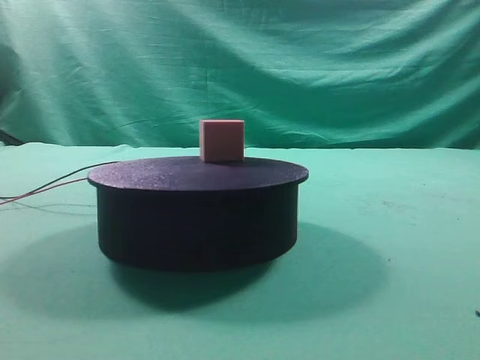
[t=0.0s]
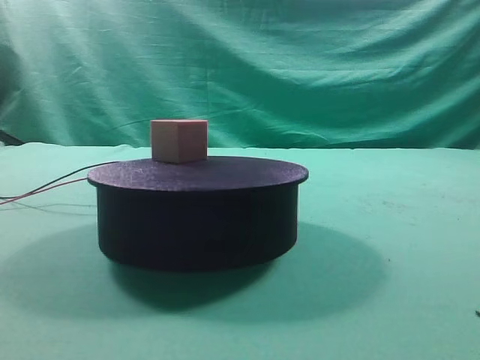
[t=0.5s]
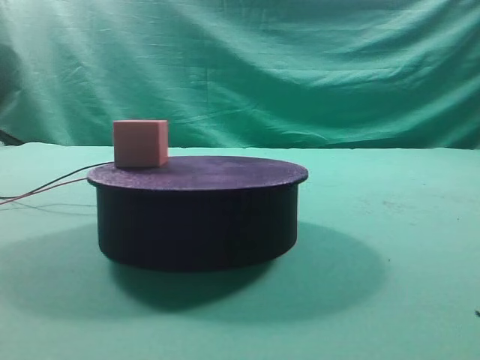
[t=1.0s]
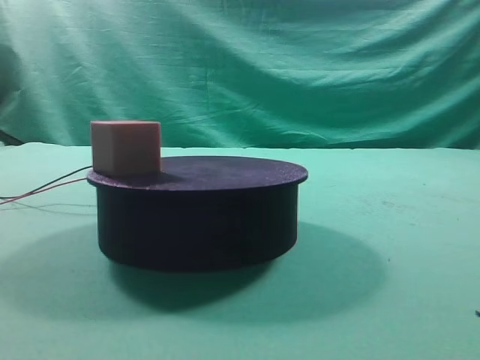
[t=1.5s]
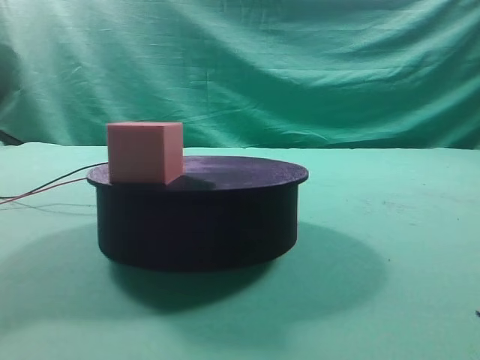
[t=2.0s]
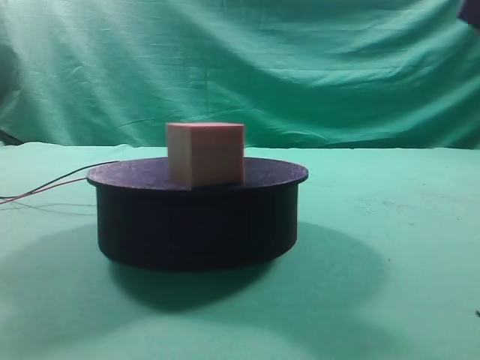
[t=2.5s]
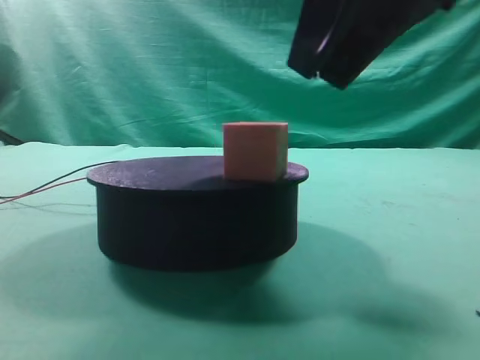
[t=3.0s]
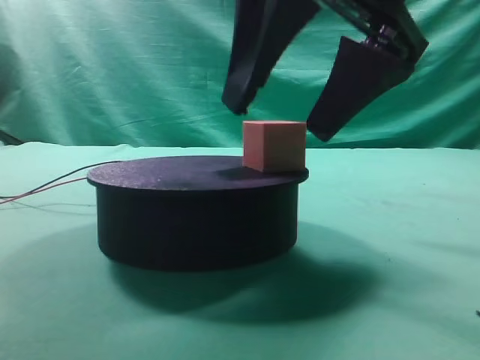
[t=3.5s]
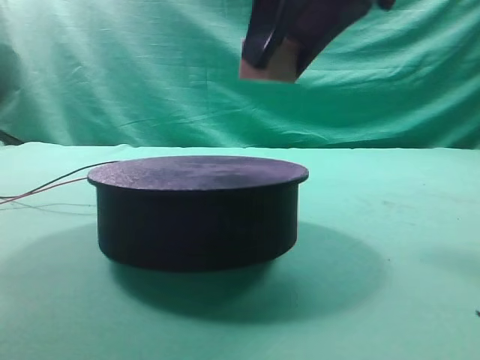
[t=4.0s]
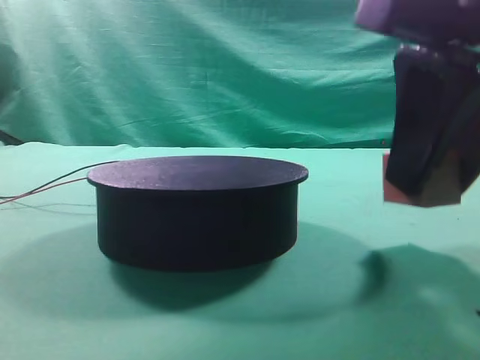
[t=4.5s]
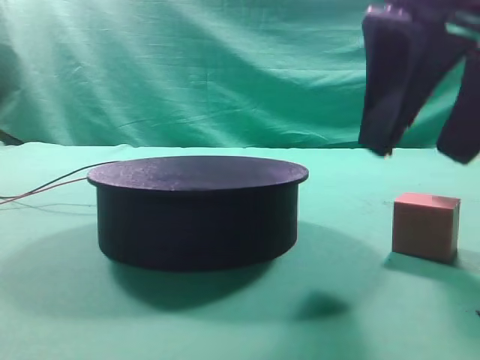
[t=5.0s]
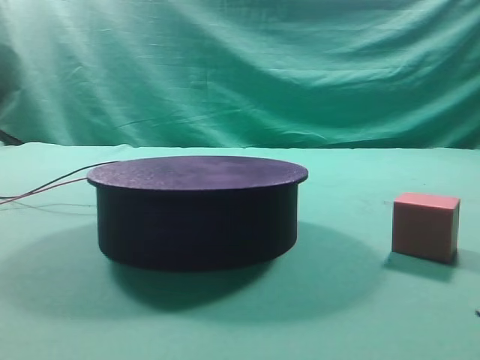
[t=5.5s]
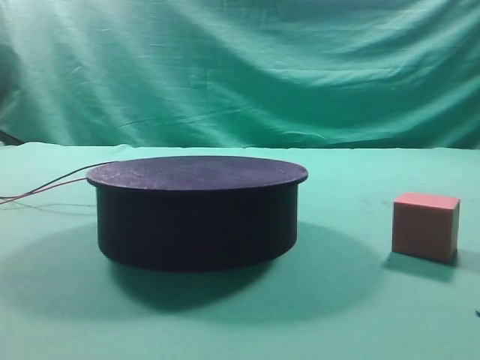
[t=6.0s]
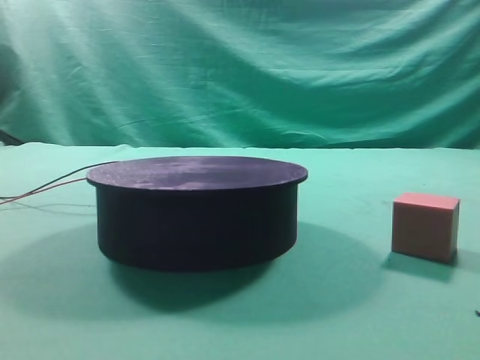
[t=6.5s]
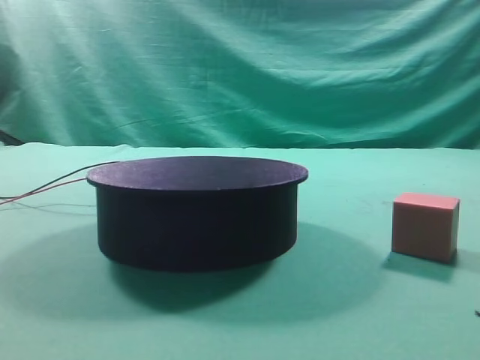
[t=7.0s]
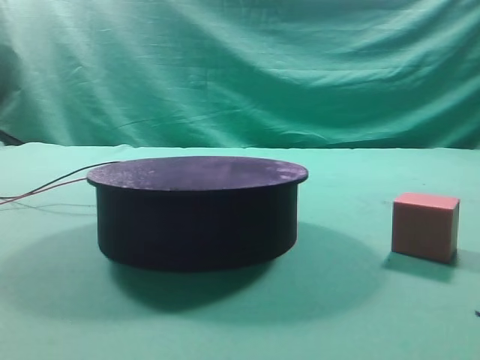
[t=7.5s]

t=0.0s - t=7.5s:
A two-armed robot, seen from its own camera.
Task of the whole recording: grasp the rotating cube-shaped block on the turntable and place it on the table.
Step, t=0.0s - t=3.5s: Grasp the rotating cube-shaped block on the turntable.
Step, t=4.0s - t=4.5s: Place the cube on the desk.

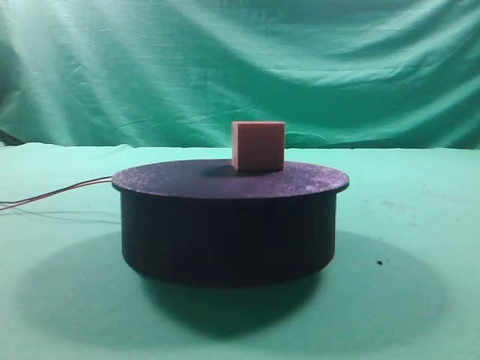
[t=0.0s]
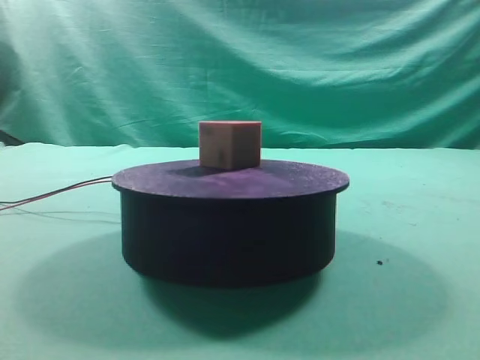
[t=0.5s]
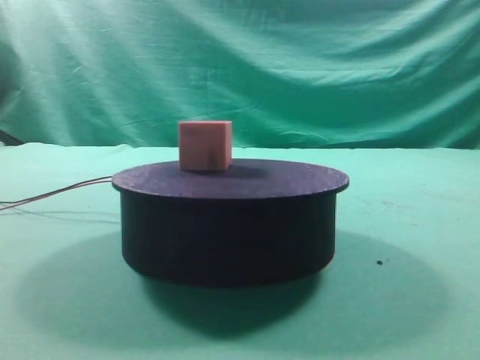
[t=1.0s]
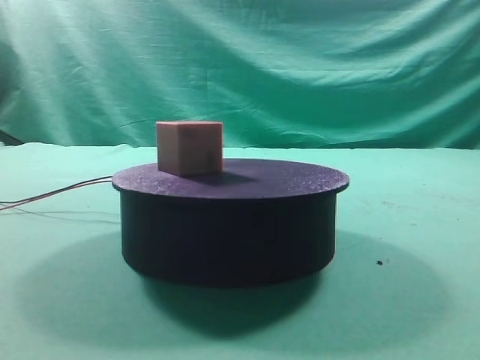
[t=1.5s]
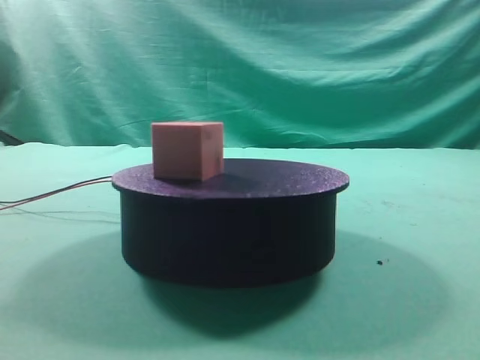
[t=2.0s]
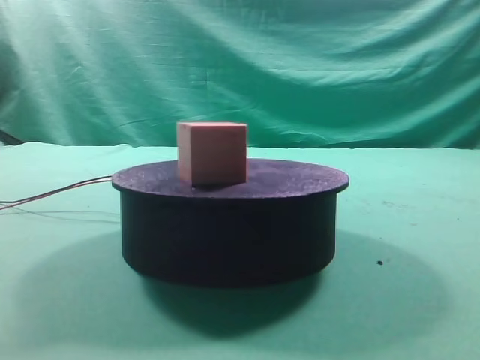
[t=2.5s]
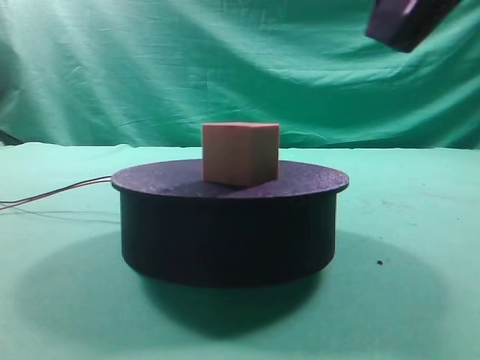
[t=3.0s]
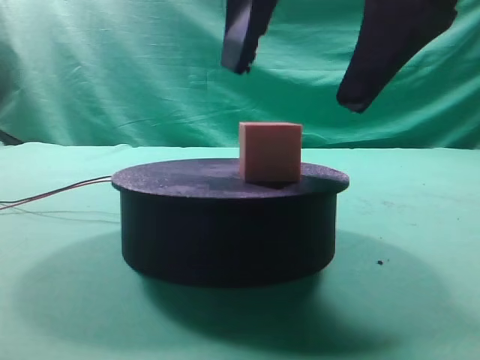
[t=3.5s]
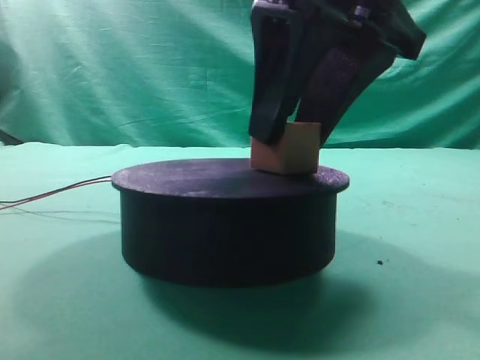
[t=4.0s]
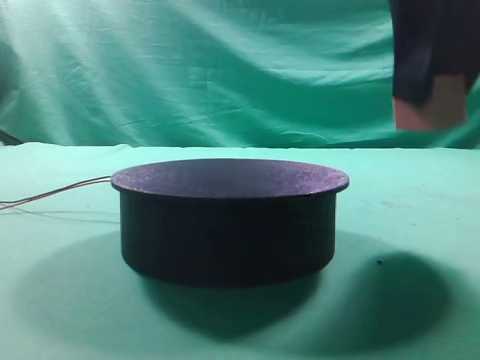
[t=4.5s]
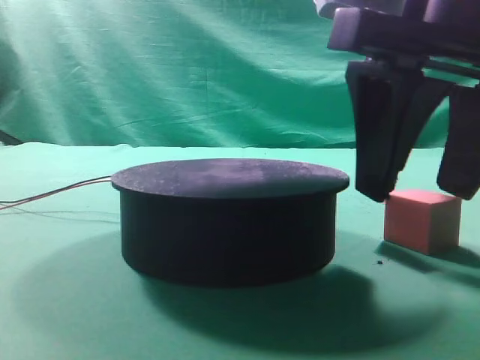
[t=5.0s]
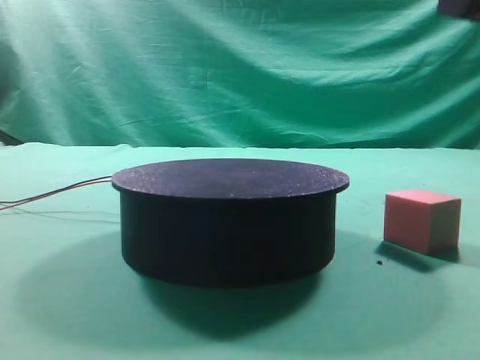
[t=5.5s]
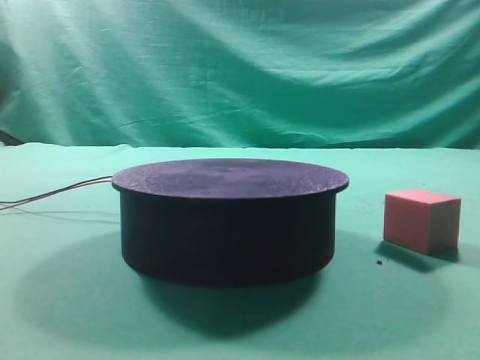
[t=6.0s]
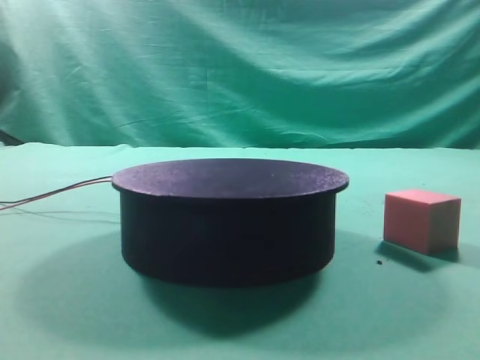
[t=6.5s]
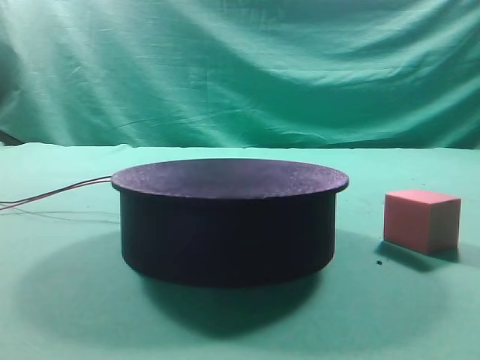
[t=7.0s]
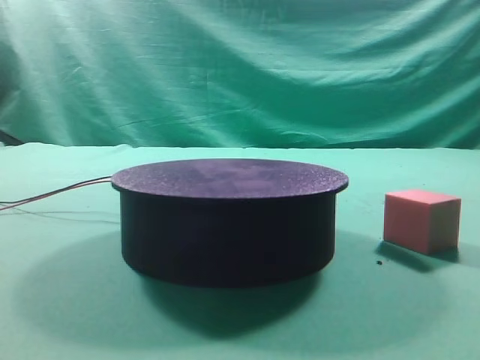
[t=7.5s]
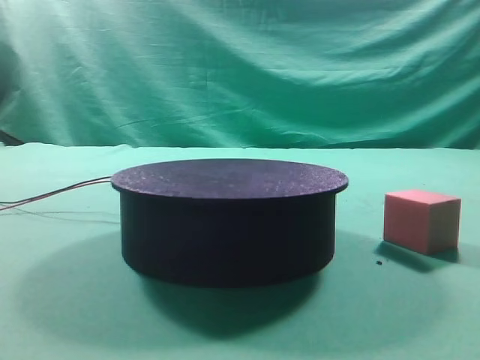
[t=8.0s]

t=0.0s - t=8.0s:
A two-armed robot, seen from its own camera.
Task of the whole recording: grasp the rotating cube-shaped block on the turntable and place it on the table.
Step, t=0.0s - t=3.0s: Grasp the rotating cube-shaped block on the turntable.
Step, t=3.5s - t=4.0s: Place the cube on the desk.
